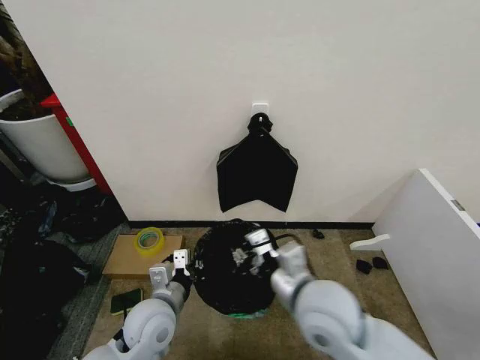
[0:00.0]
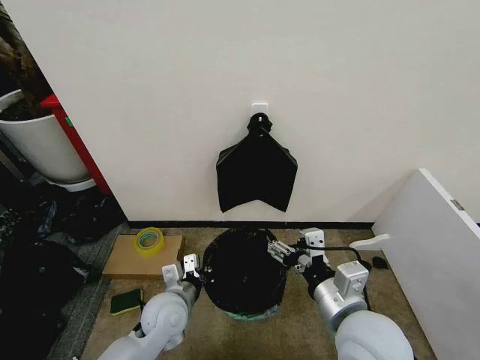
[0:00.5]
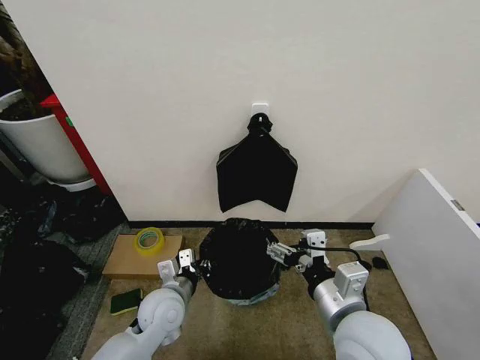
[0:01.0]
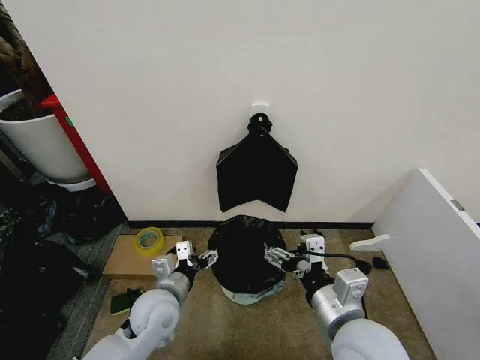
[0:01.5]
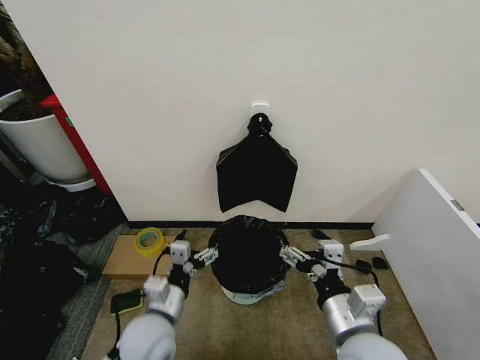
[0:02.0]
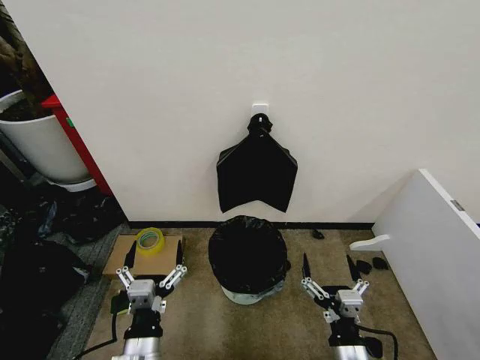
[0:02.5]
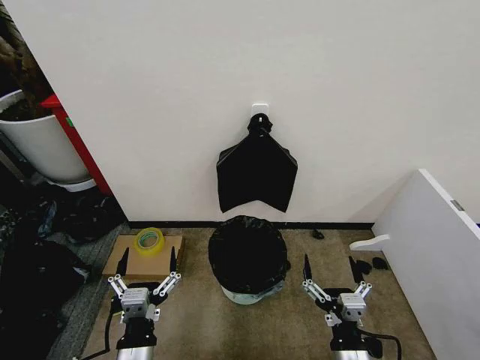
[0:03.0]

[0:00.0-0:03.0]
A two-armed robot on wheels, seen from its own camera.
Task of the whole recording: Place the garbage bag over the trash bin.
0:00.0 to 0:01.5: The left gripper opens its fingers. The right gripper shifts about 5 cm backward, and opens.
0:01.5 to 0:03.0: The right gripper moves downward and backward, some 15 cm; the left gripper moves backward, some 15 cm.

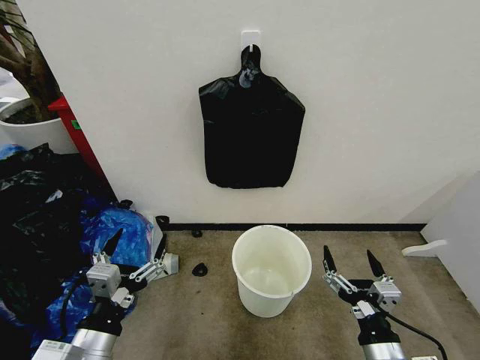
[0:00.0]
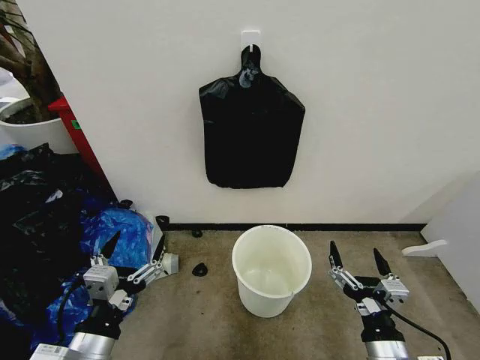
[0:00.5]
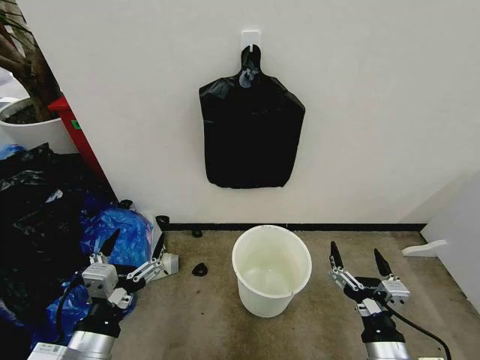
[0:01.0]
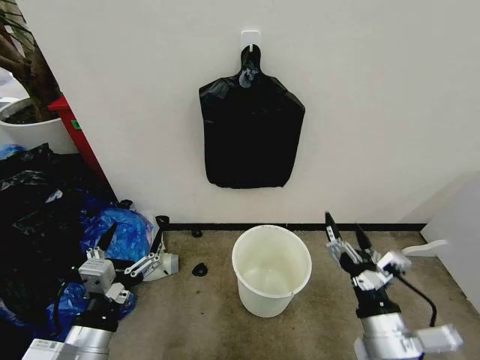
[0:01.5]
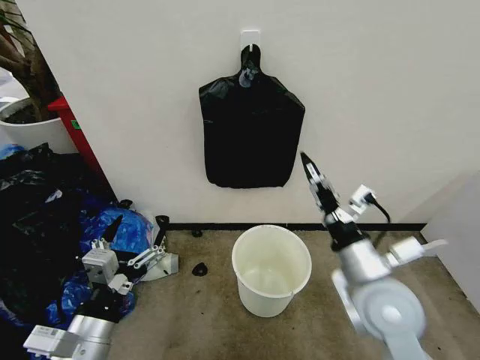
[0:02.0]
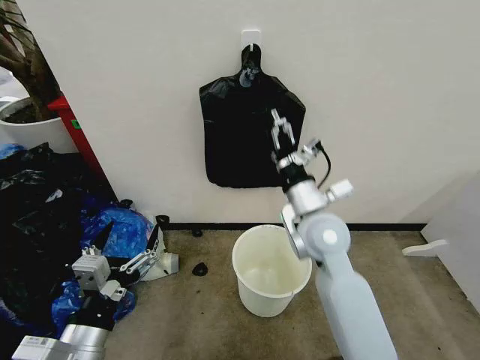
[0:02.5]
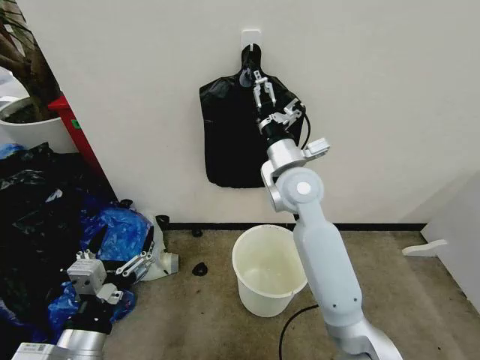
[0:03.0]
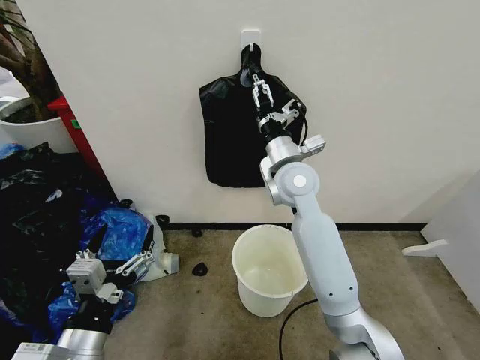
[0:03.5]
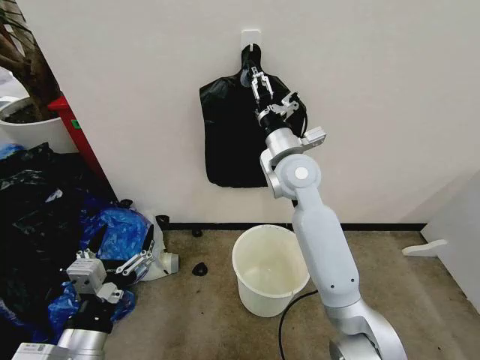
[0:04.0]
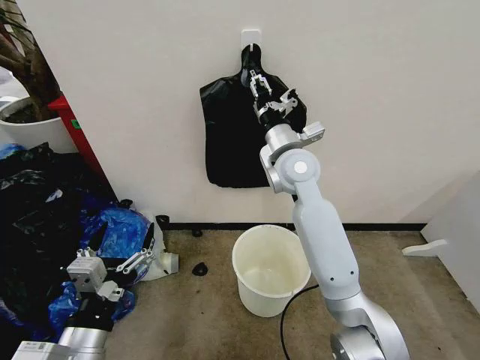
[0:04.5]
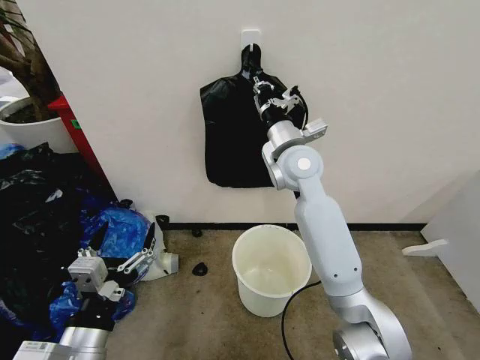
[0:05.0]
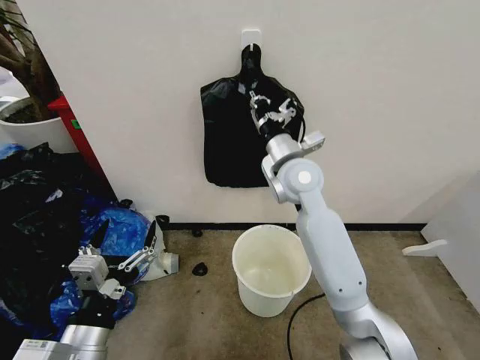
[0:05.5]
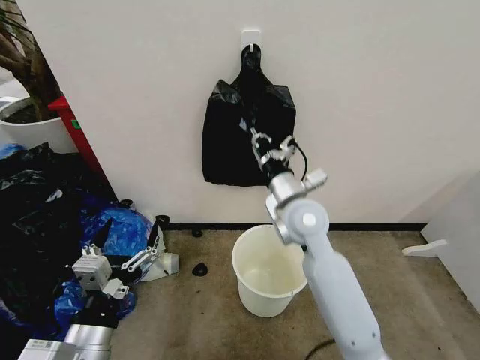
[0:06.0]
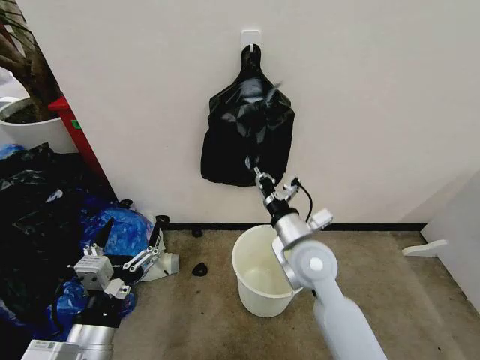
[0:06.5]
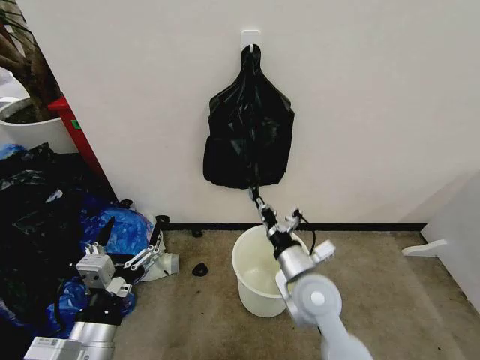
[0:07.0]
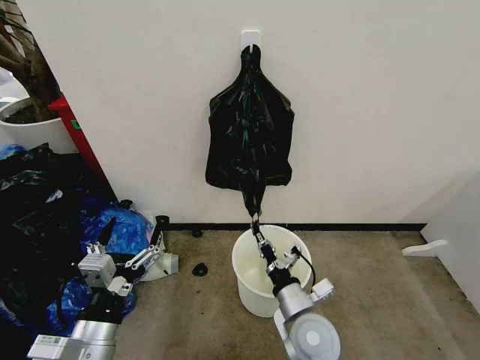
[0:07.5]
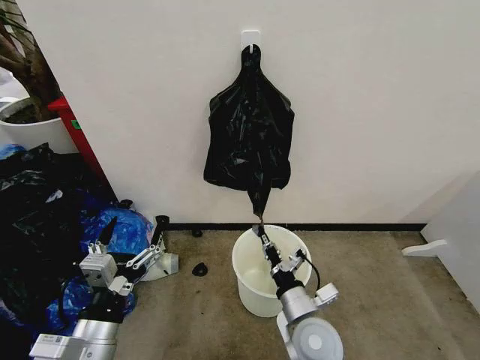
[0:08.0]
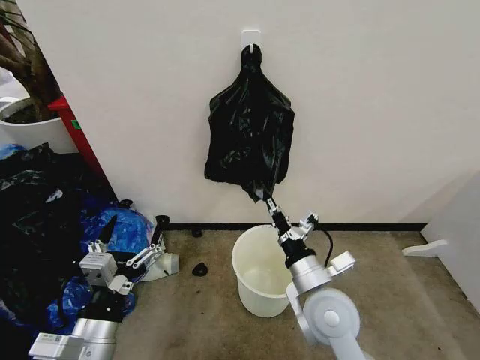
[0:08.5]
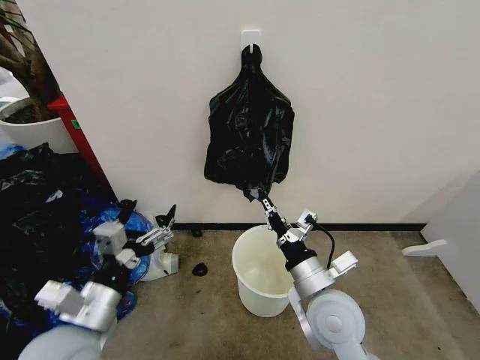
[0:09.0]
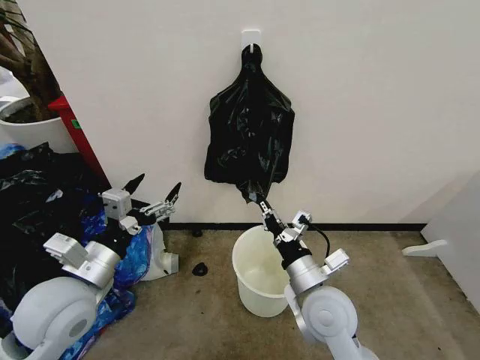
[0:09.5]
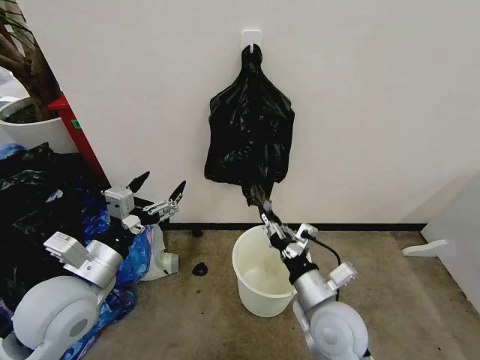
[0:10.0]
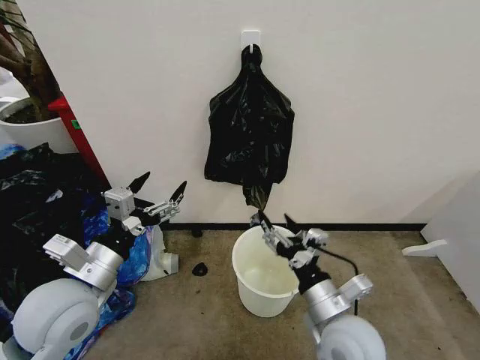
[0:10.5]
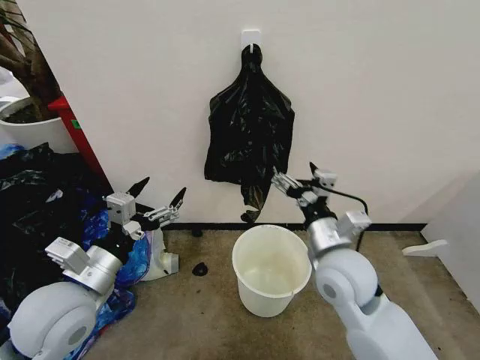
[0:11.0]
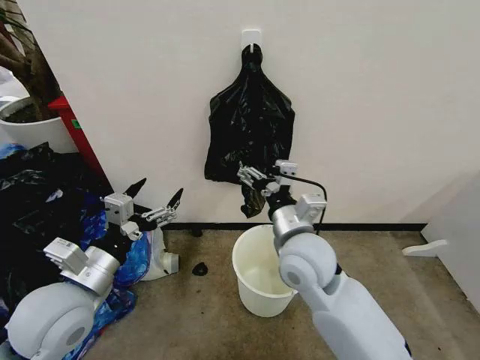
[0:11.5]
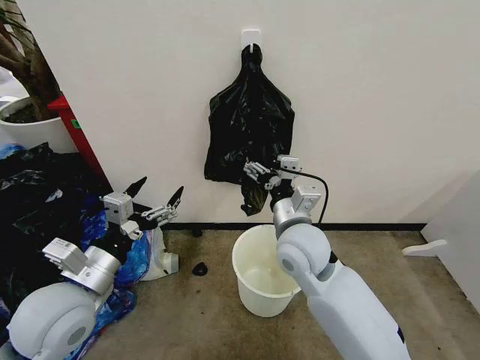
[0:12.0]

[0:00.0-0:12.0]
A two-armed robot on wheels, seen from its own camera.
Task of the whole recording: Place the garbage bag over the trash bin.
0:02.0 to 0:04.0: The right gripper moves forward and to the left, approximately 25 cm.
0:04.0 to 0:06.0: The right gripper heads backward and downward, covering about 10 cm, and closes.
0:06.0 to 0:08.0: The right gripper goes some 25 cm backward and downward.
0:08.0 to 0:10.0: The left gripper moves forward and upward, about 10 cm. Meanwhile the right gripper shifts about 5 cm upward.
0:10.0 to 0:12.0: The right gripper travels forward, upward and to the left by approximately 15 cm, and opens its fingers.

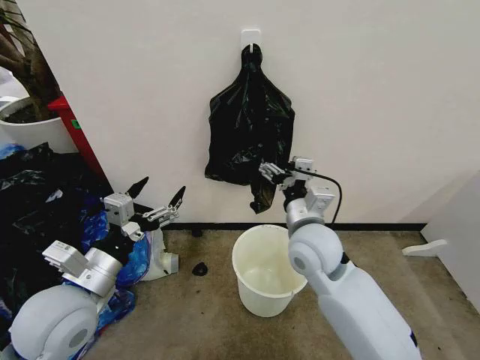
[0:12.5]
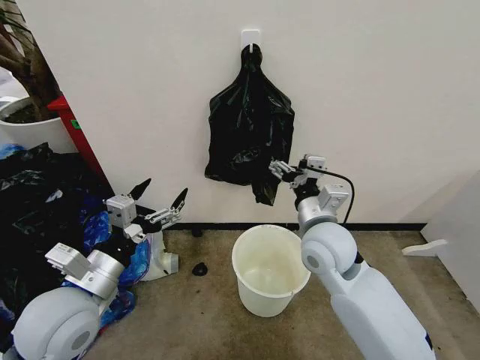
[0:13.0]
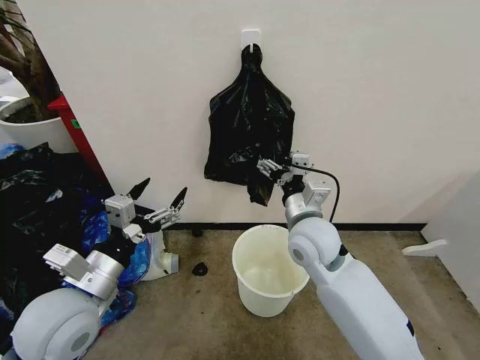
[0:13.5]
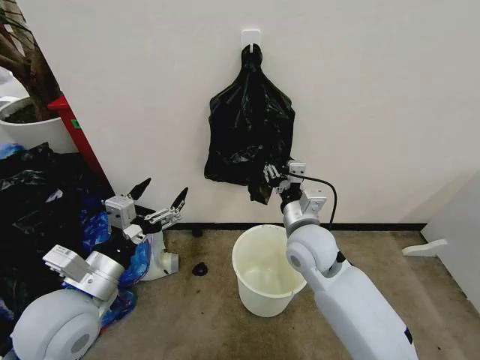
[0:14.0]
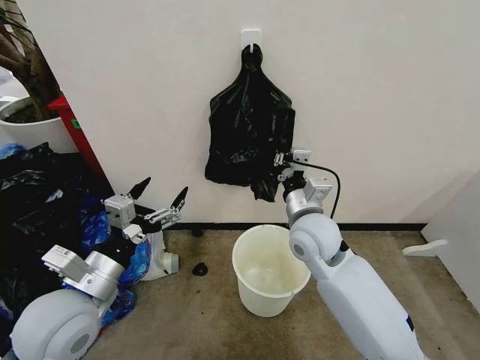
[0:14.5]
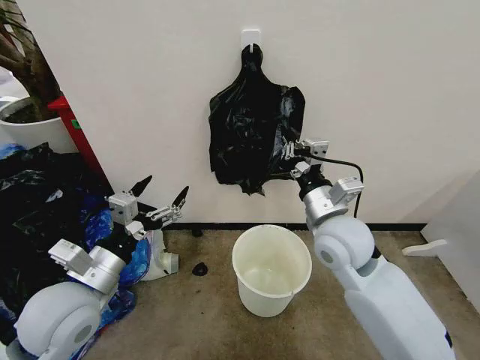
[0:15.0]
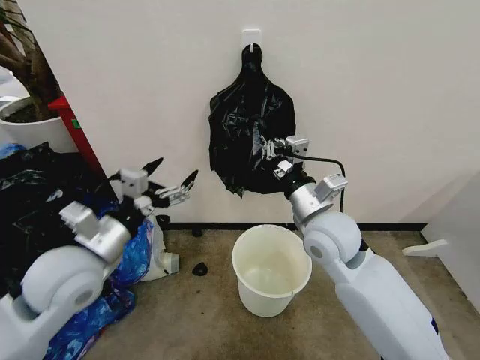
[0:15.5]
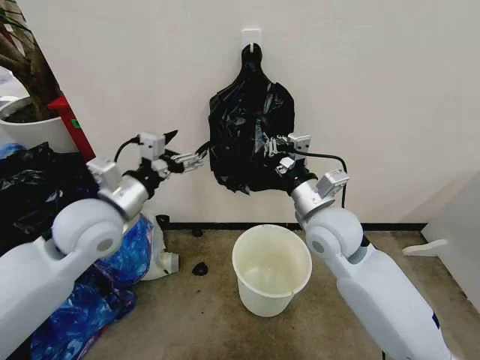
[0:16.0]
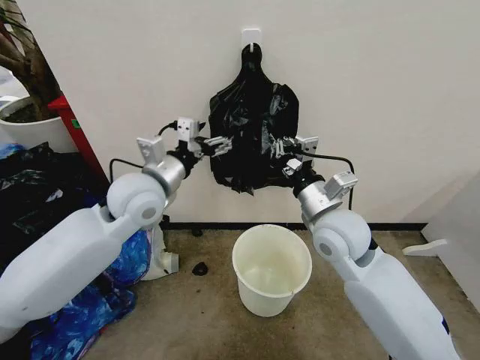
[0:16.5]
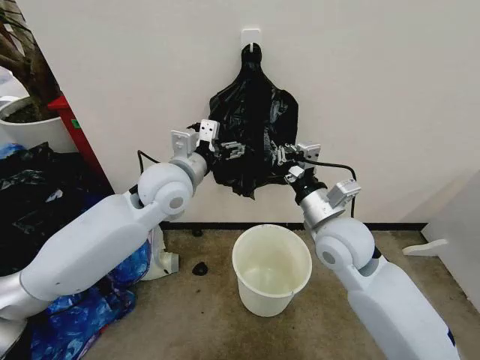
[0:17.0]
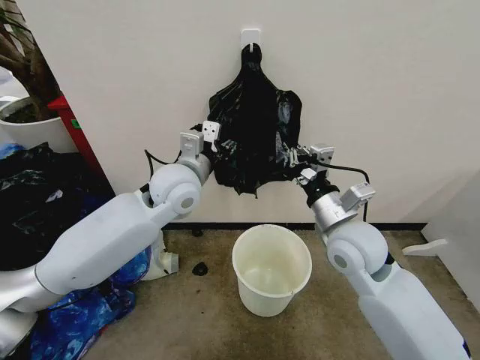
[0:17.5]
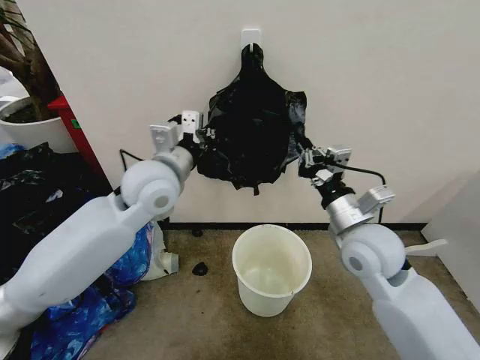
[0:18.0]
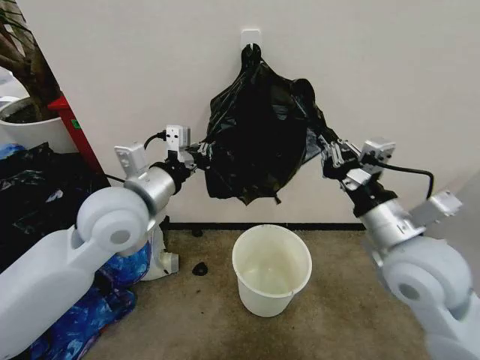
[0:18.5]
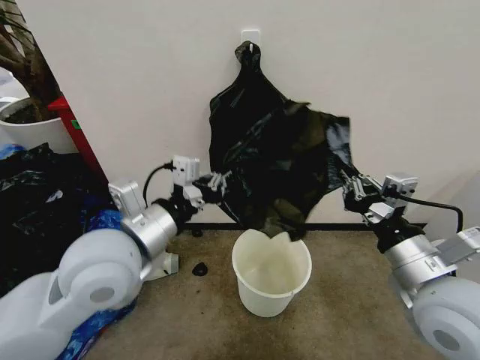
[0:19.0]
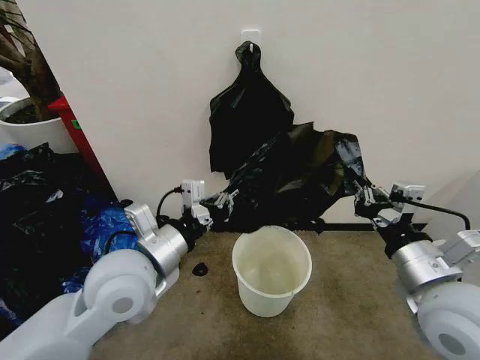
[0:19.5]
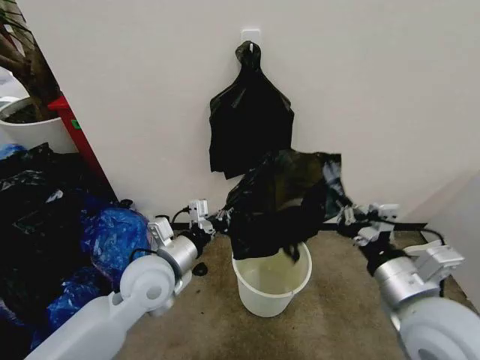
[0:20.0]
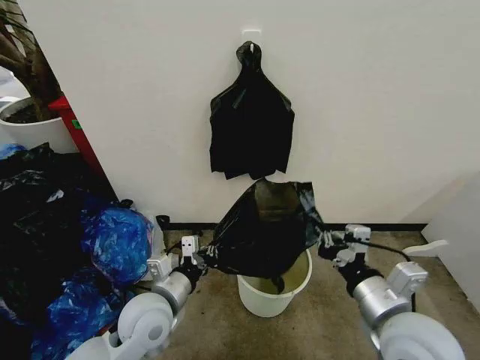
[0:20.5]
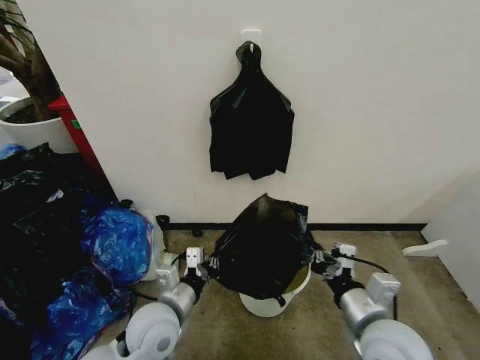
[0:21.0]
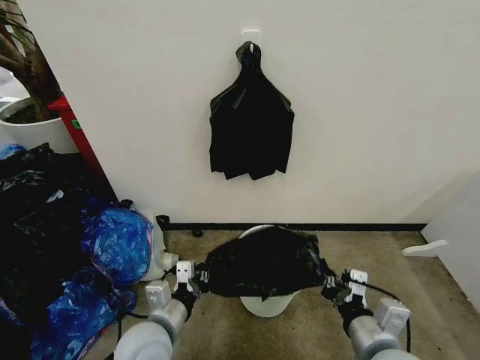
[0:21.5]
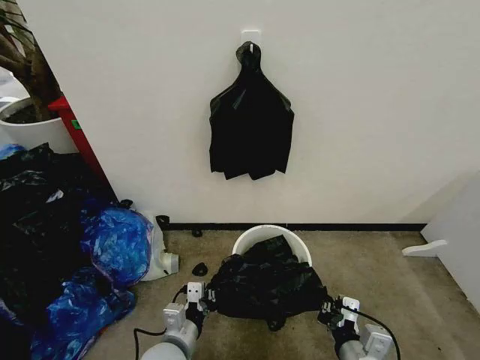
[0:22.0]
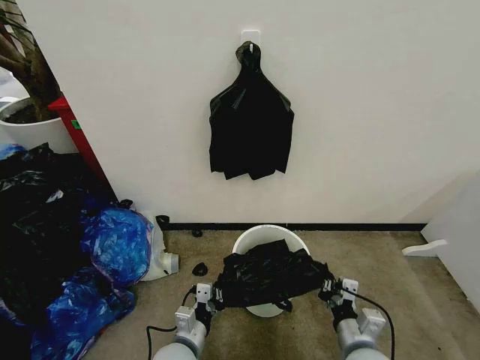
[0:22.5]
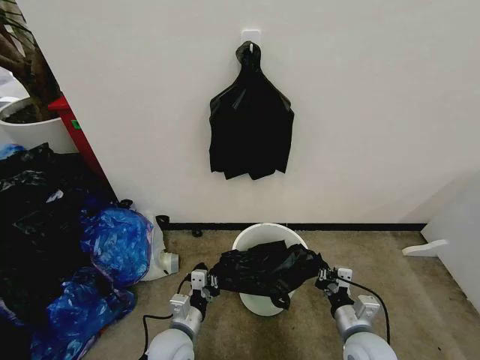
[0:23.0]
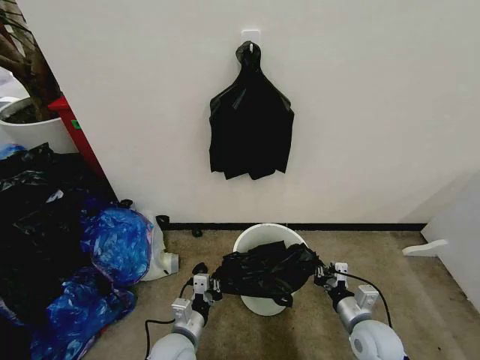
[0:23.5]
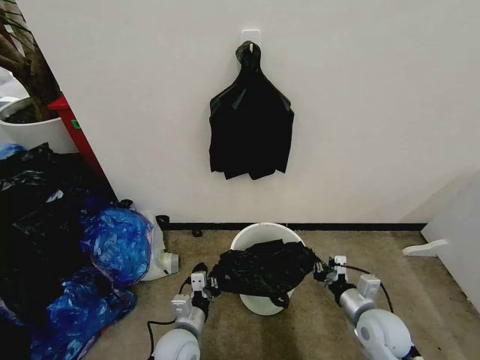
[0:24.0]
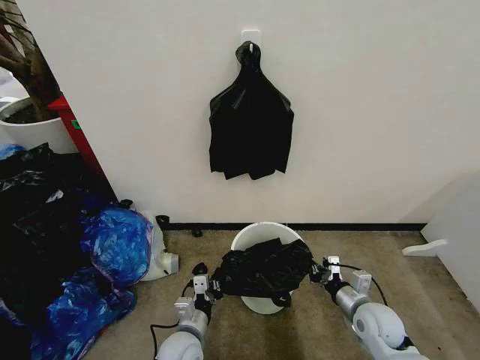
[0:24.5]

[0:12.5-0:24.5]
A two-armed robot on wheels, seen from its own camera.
Task of the whole recording: Place the garbage bag over the trash bin.
0:12.5 to 0:14.5: The right gripper closes its fingers.
0:14.5 to 0:16.5: The left gripper is displaced forward, to the right and upward by about 20 cm. Meanwhile the right gripper changes place by about 5 cm.
0:16.5 to 0:18.5: The left gripper heads backward, covering roughly 5 cm, and closes up. The right gripper shifts some 10 cm backward and to the right.
0:18.5 to 0:20.5: The left gripper heads downward, covering roughly 20 cm; the right gripper shifts roughly 10 cm downward and backward.
0:20.5 to 0:22.5: The grippers both shift downward by some 15 cm.
0:22.5 to 0:24.5: The right gripper is displaced forward and to the right by roughly 10 cm.
